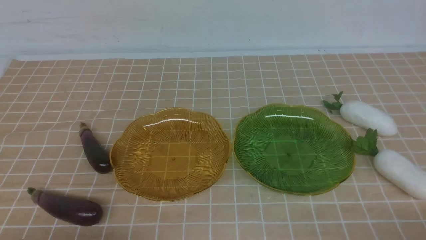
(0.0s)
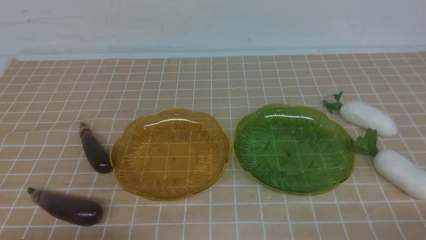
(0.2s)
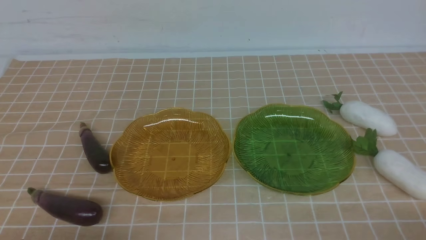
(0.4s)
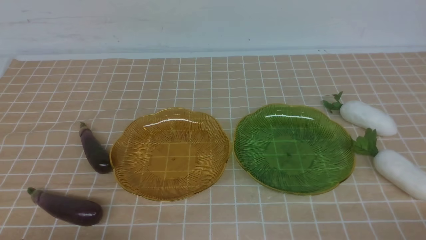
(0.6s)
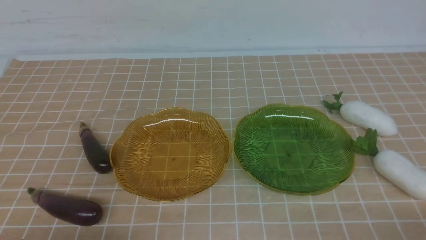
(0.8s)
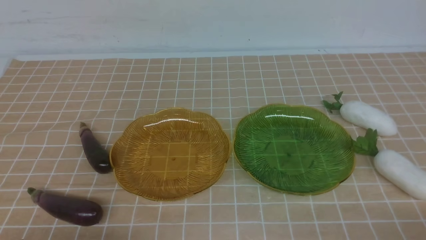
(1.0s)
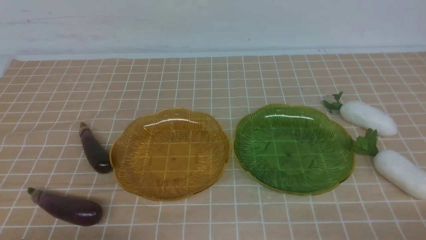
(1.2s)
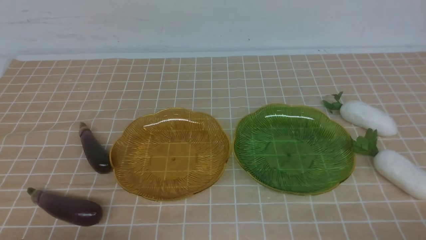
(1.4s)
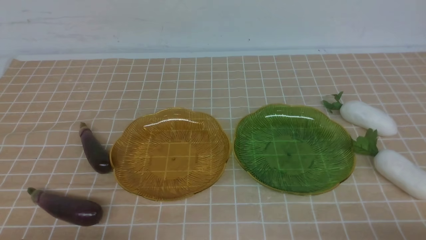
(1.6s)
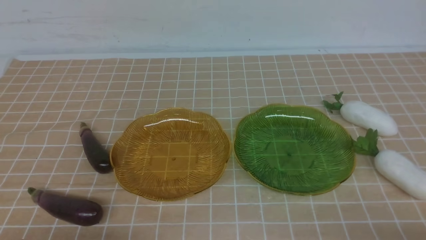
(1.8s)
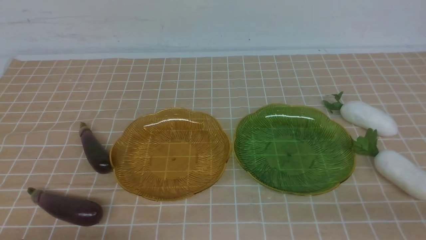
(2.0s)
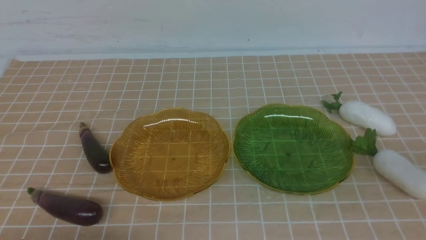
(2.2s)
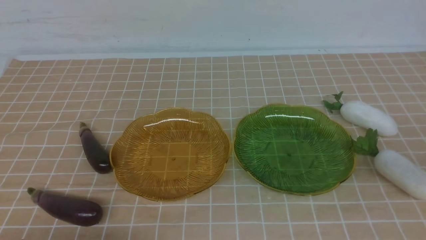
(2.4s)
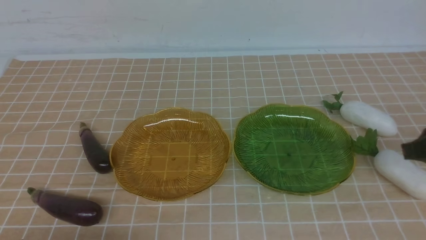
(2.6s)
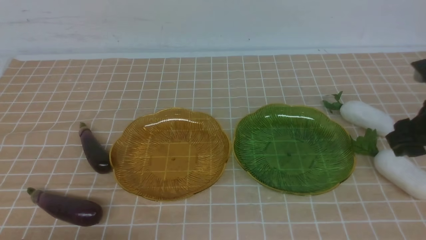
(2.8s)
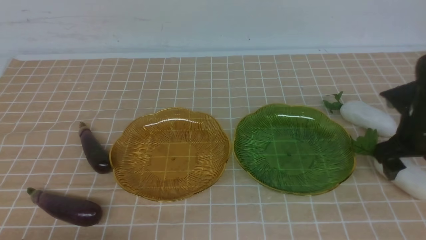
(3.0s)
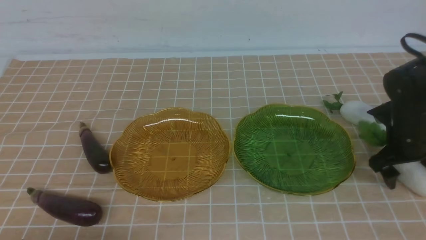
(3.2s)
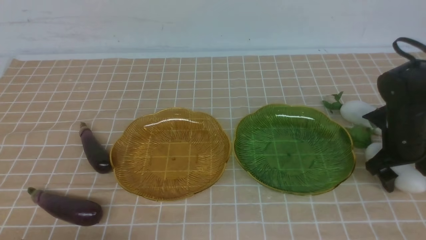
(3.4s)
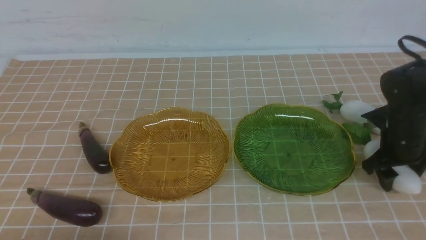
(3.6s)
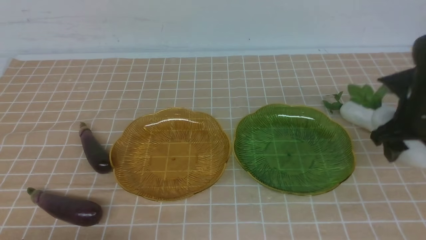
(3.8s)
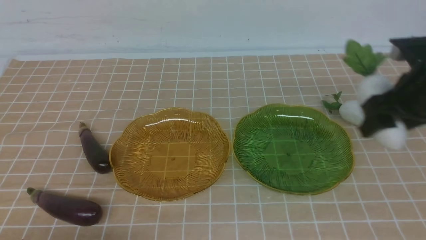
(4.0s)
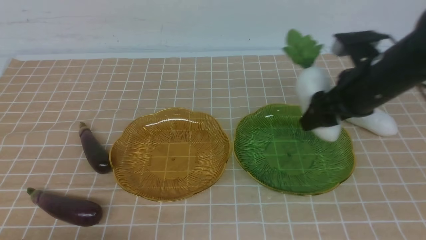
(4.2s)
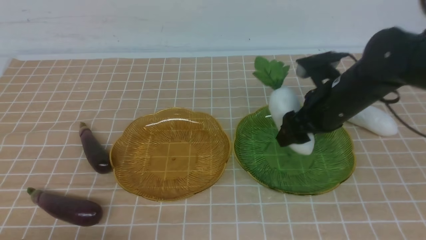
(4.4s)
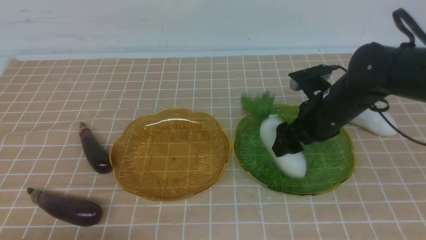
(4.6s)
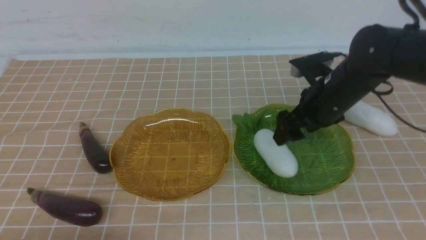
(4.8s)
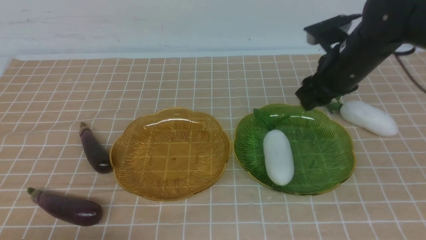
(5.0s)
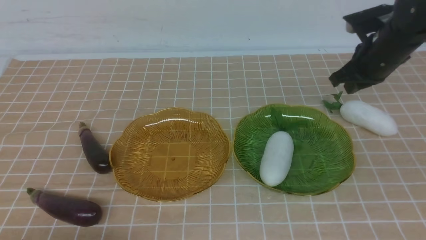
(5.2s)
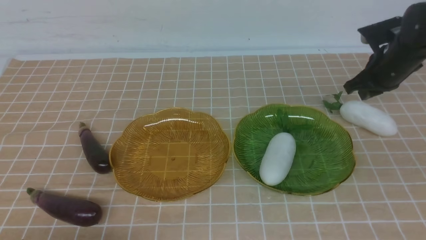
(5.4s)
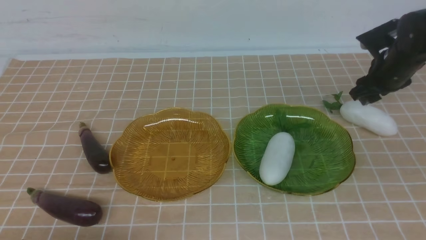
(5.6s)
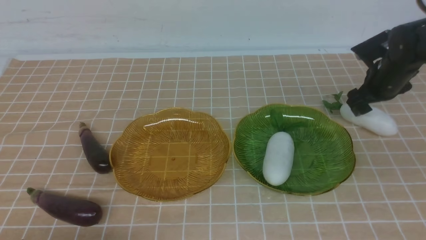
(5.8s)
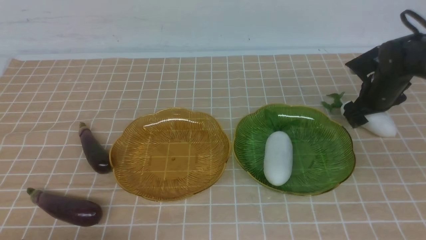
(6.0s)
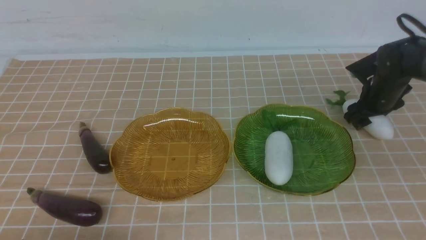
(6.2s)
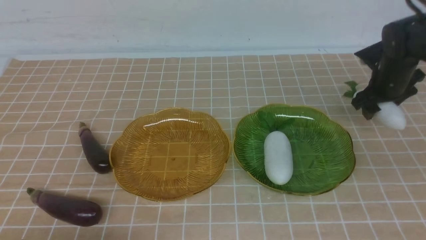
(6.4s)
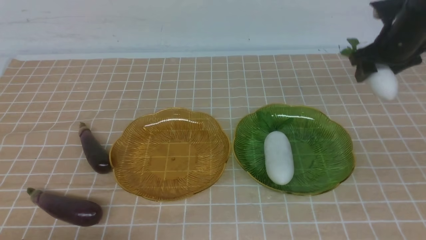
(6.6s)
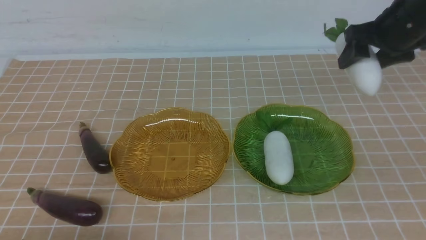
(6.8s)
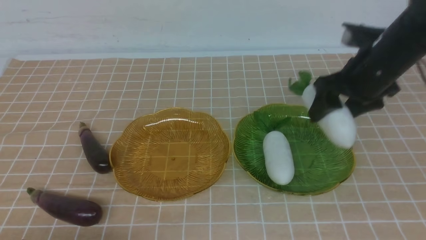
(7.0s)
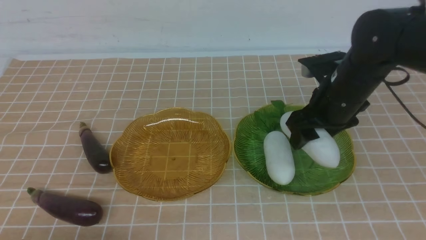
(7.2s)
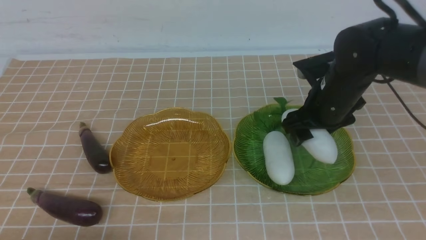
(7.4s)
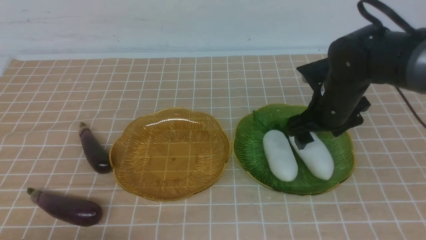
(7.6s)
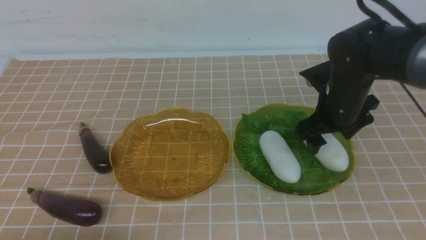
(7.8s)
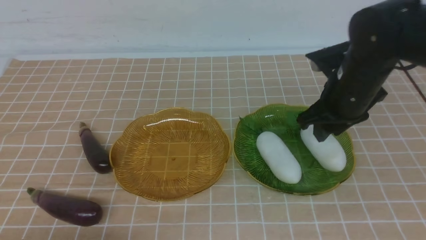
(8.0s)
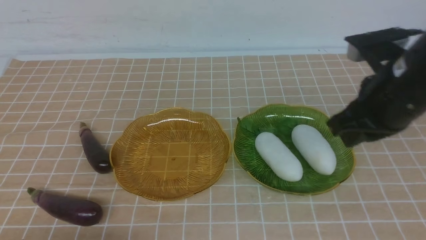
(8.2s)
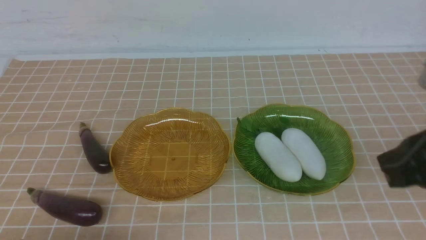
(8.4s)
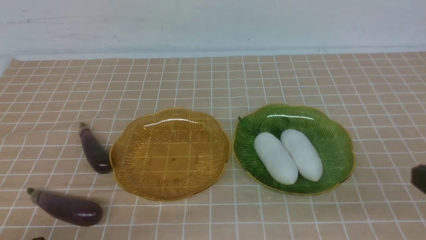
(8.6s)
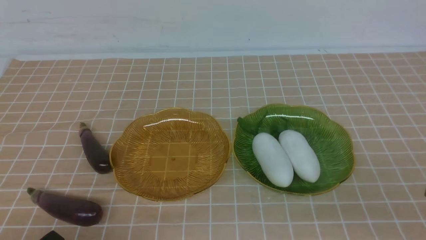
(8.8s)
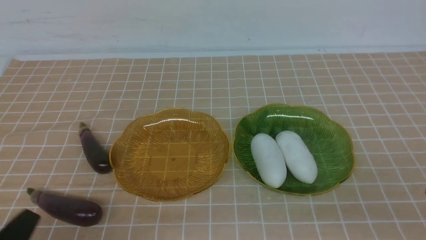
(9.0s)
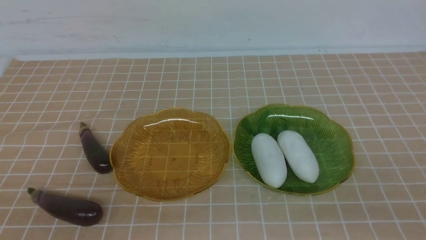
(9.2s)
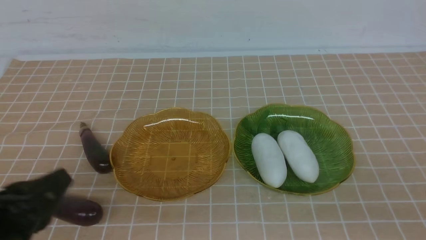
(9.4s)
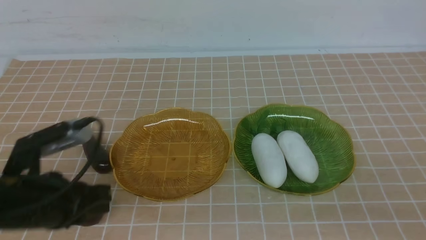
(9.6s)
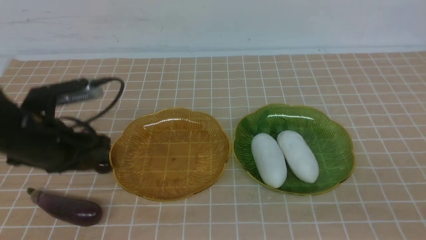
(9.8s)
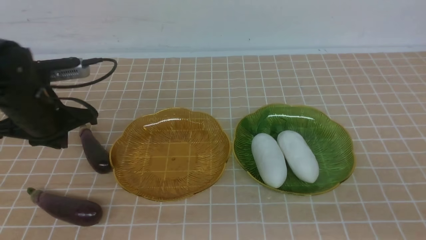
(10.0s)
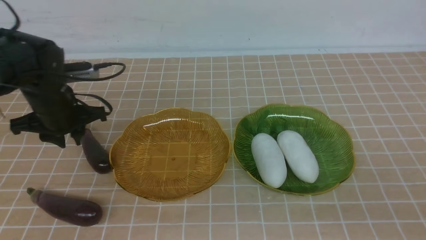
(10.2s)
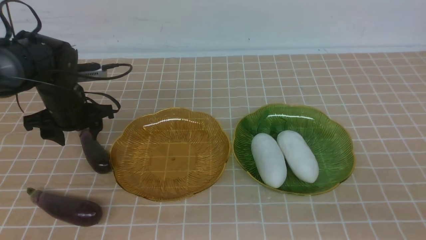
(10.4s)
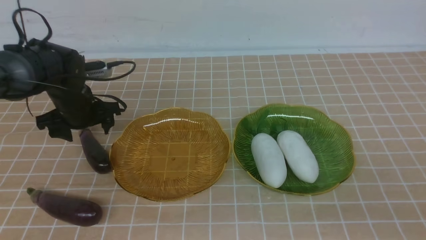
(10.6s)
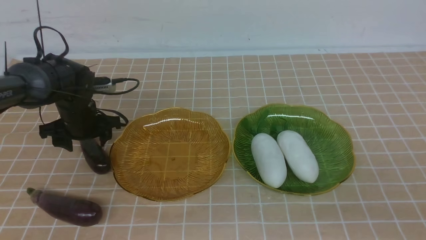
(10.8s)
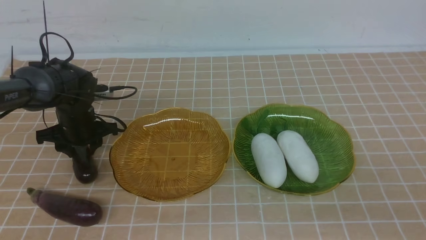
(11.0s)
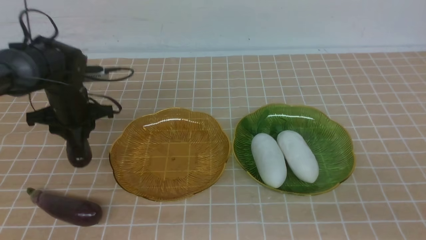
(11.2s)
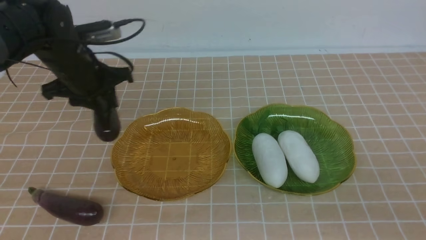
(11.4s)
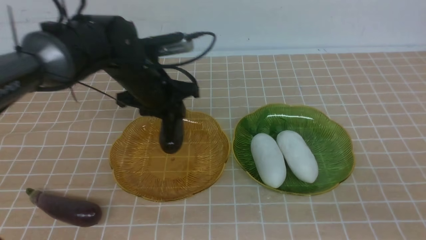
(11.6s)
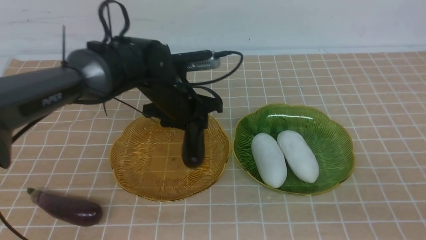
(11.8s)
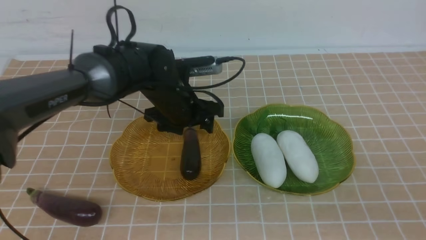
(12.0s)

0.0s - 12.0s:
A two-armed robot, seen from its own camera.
Step, 0.0s - 8.0s: use the right arm to grab a radish and put it into the right plate.
1.6s - 3.0s: The right gripper goes roughly 25 cm forward, and opens its fingers.
3.0s - 4.4s: The right gripper moves to the left, approximately 10 cm.
4.4s - 6.0s: The right gripper moves to the right, forward and downward, roughly 20 cm, and closes, then opens again.
6.0s - 7.6s: The right gripper shifts some 20 cm to the left, backward and upward.
7.6s - 9.0s: The left gripper travels upward by roughly 5 cm, while the right gripper goes some 30 cm backward, and closes its fingers.
9.0s - 10.4s: The left gripper travels forward by some 35 cm, and opens up.
10.4s - 12.0s: The left gripper goes some 15 cm to the right and upward.

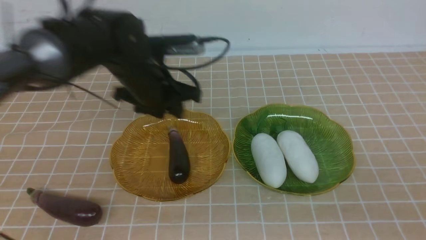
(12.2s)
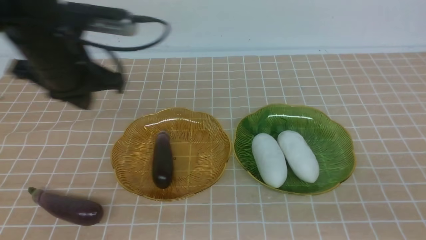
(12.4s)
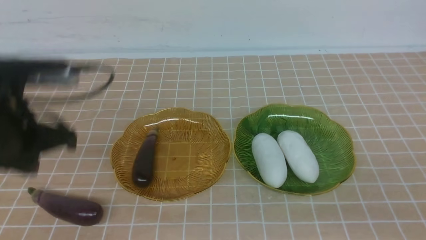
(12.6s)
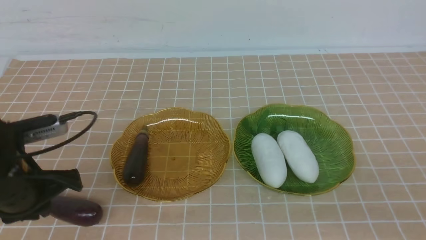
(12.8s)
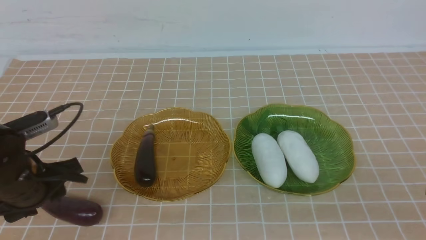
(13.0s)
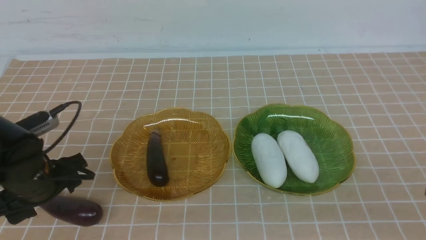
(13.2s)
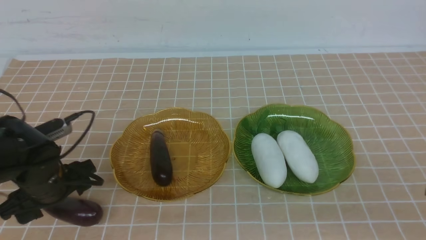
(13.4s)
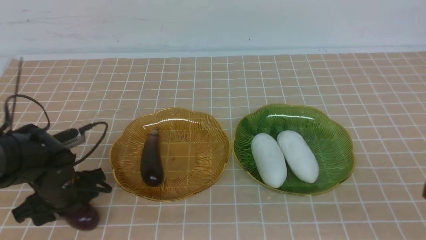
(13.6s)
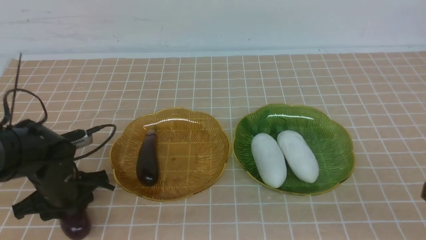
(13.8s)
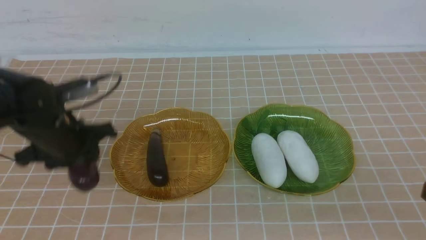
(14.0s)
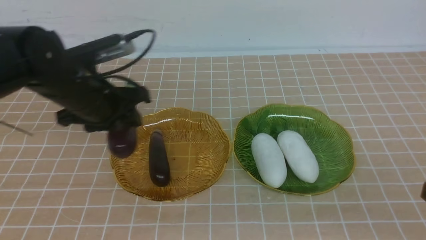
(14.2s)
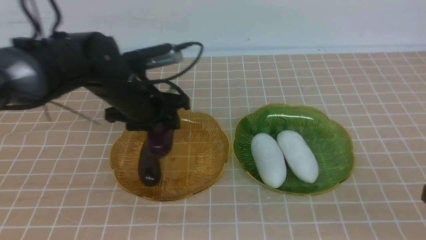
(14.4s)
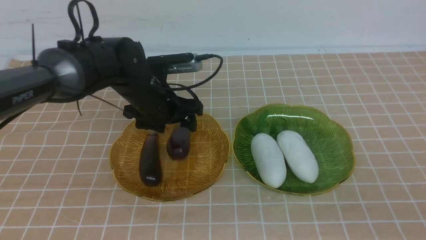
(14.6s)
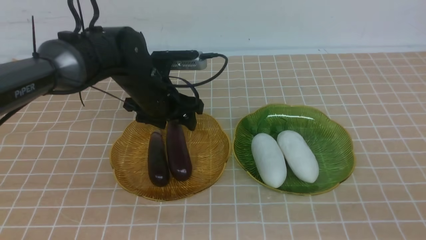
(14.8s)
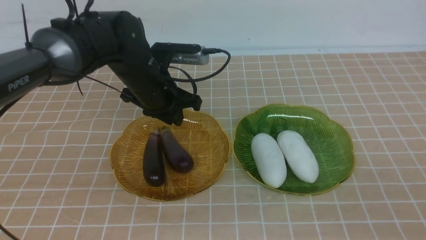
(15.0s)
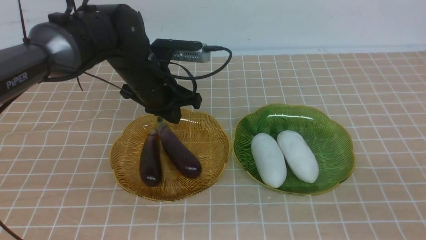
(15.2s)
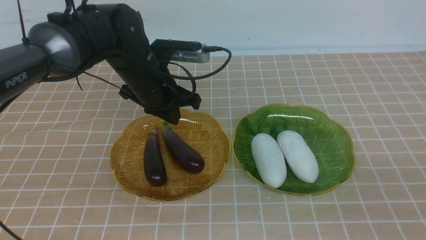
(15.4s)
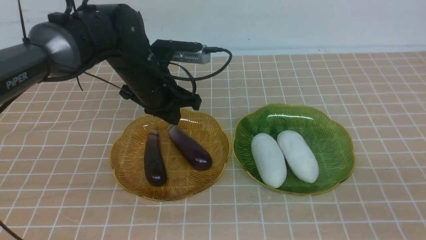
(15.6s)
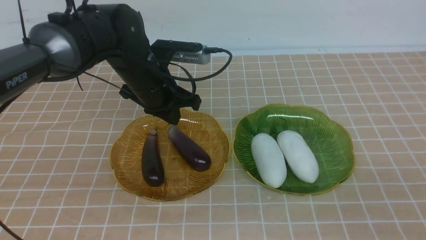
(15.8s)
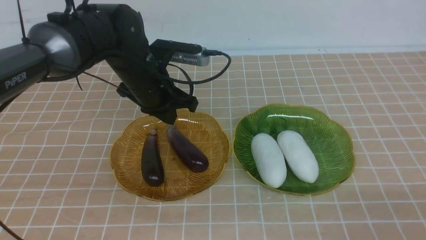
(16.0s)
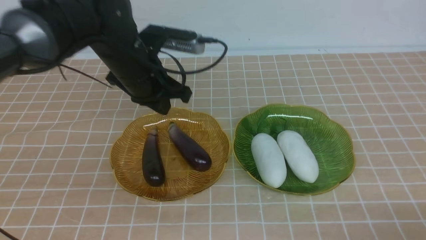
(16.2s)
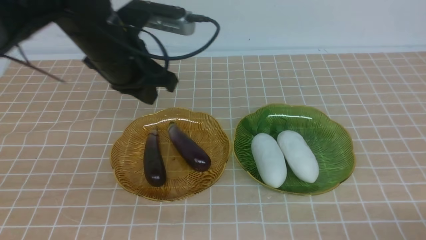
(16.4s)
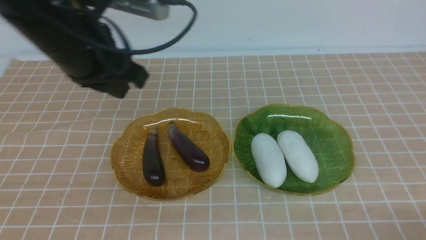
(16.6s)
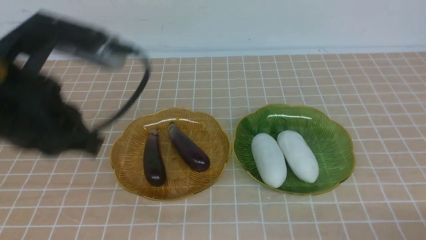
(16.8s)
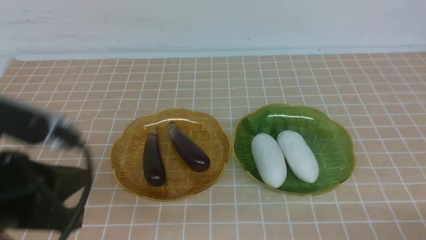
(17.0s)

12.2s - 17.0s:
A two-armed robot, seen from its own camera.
Step, 12.2s - 14.8s: use the left arm to grab an eggplant and put it into the left plate.
12.2s - 13.8s: The left gripper is displaced downward, to the left and backward by some 20 cm.
13.8s - 15.4s: The left gripper is displaced to the right, forward and upward by approximately 20 cm, and closes.
15.4s - 17.0s: The left gripper travels backward by some 25 cm. The right gripper is displaced downward by some 10 cm.
